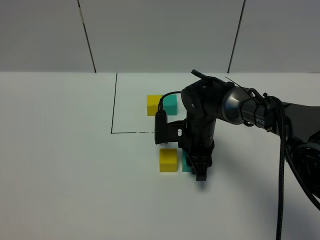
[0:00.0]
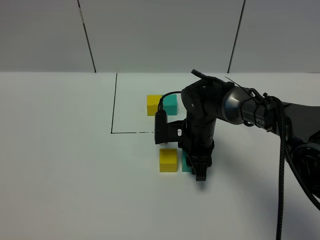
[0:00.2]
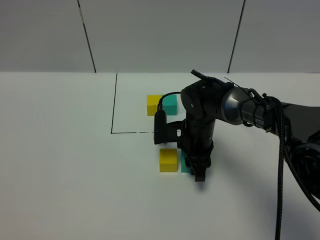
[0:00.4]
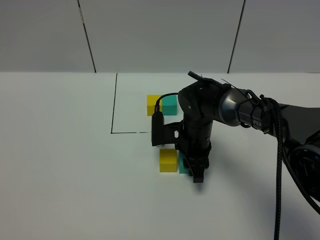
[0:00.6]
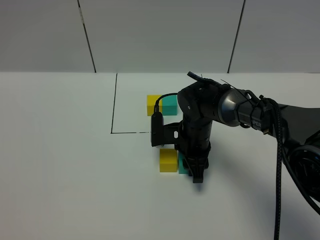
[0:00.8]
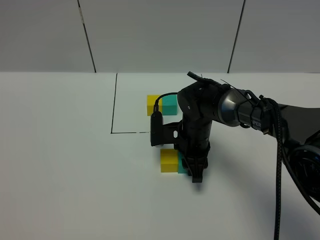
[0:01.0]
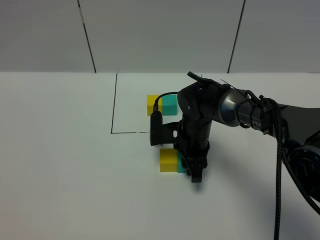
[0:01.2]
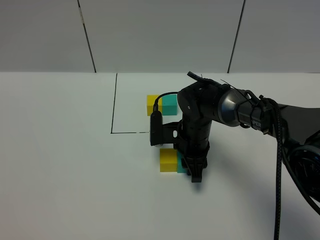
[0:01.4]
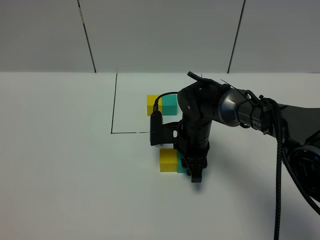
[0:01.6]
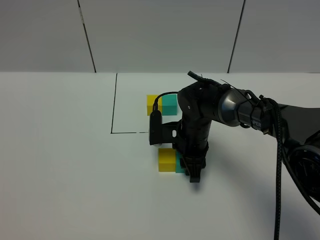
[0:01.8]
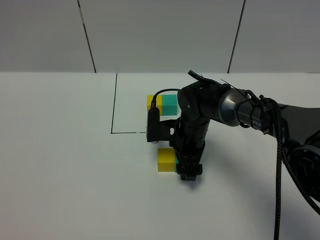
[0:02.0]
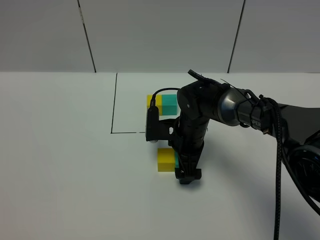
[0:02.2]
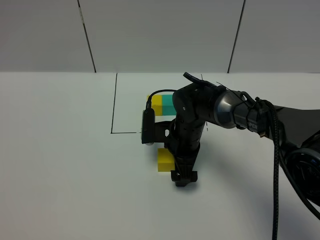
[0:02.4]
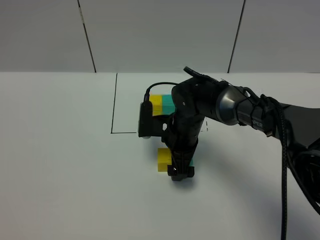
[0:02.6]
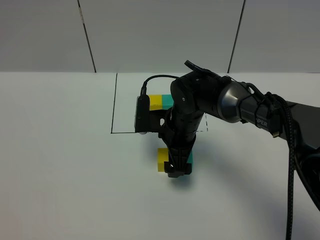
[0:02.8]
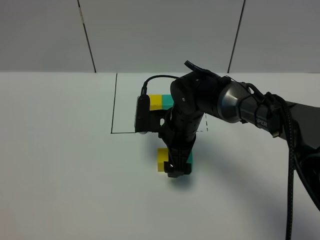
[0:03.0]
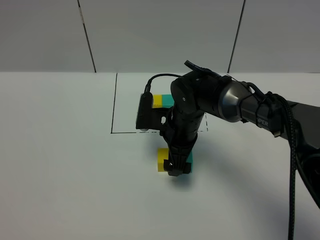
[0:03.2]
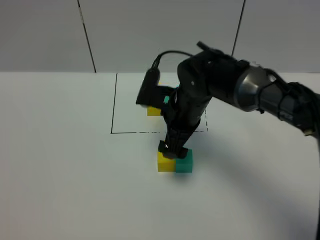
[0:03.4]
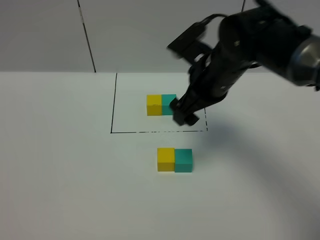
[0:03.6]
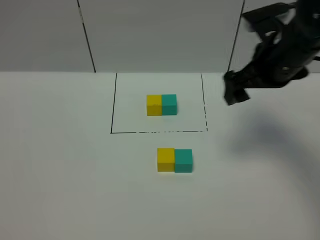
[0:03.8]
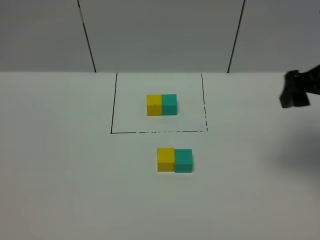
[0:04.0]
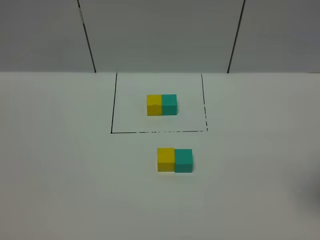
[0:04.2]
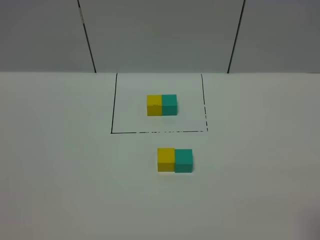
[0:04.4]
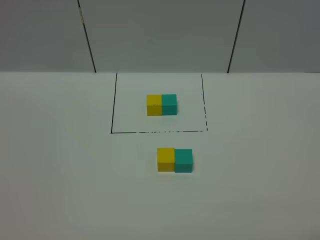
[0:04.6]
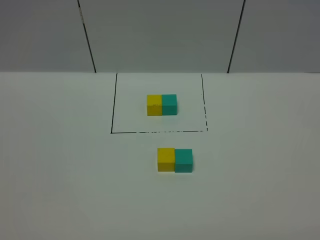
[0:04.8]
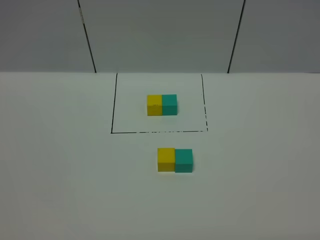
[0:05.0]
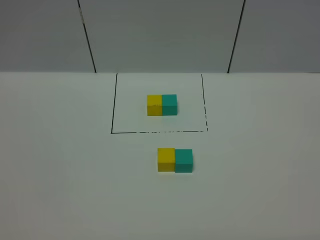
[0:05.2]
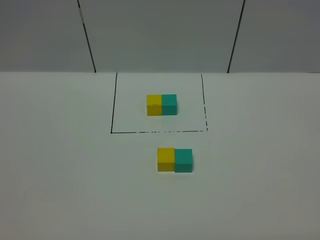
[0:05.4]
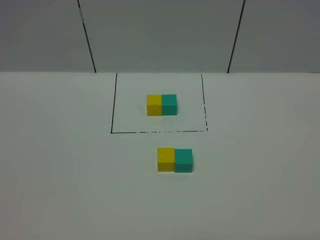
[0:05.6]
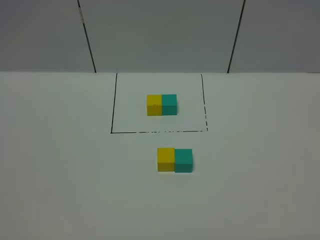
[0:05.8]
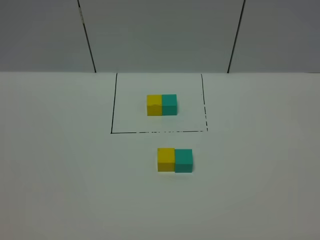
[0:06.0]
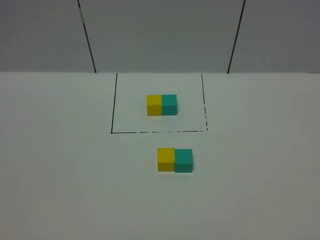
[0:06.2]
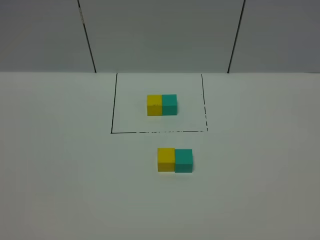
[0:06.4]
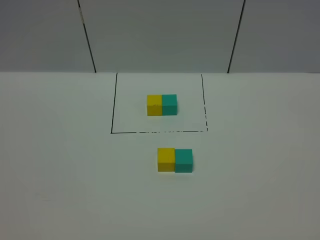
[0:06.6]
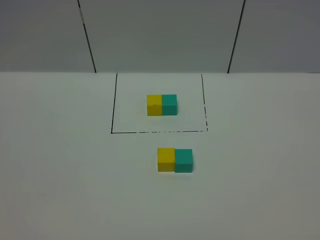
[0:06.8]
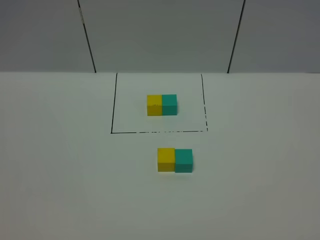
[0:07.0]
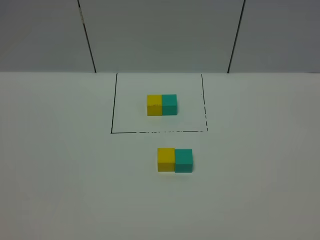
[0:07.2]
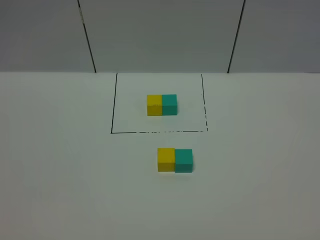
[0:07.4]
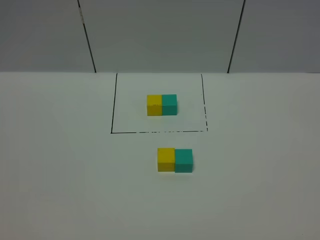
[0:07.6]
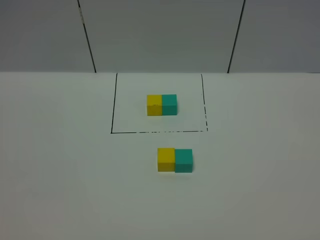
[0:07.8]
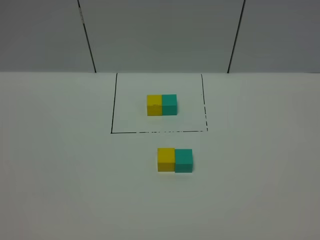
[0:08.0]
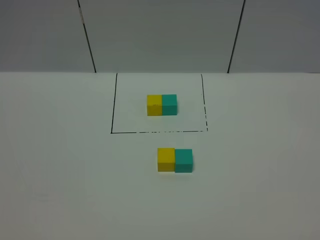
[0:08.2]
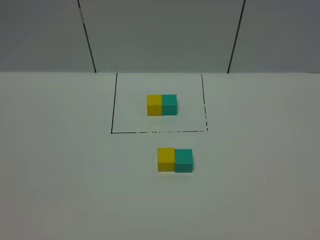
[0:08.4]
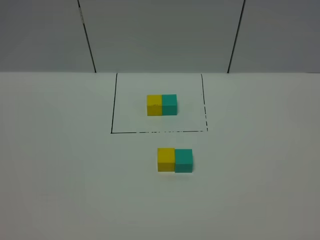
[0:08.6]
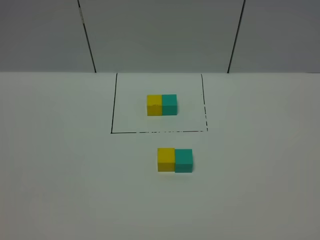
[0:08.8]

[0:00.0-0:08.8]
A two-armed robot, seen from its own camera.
Task of the whole recording: According to the building block template in front, assemble the scattered blocks together.
Step, 0:00.0 to 0:02.2: Put the green cube on the right of the yellow cube.
0:00.0 to 0:01.4: The two grippers keep their place.
0:01.4 to 0:03.0: The right gripper opens.
0:03.0 to 0:04.4: The right gripper travels to the right, backward and upward by about 40 cm.
0:07.4 to 0:08.8: Neither gripper changes place.
